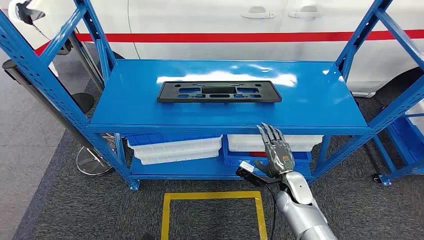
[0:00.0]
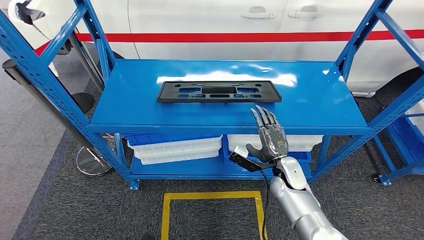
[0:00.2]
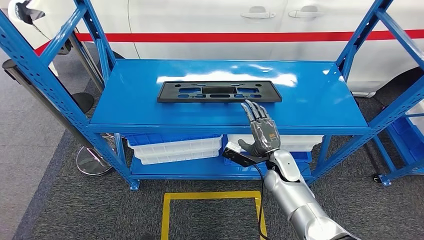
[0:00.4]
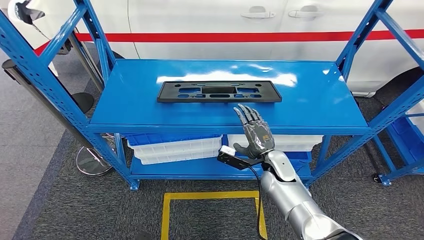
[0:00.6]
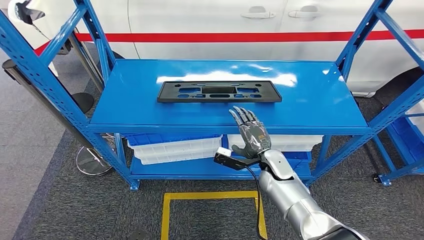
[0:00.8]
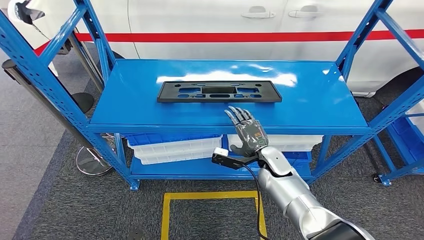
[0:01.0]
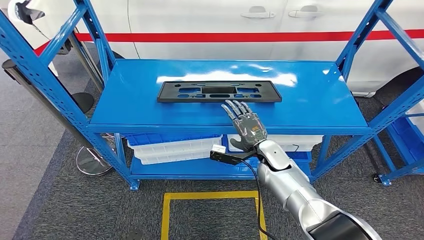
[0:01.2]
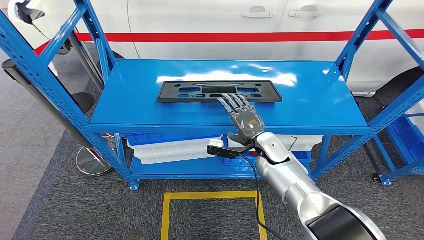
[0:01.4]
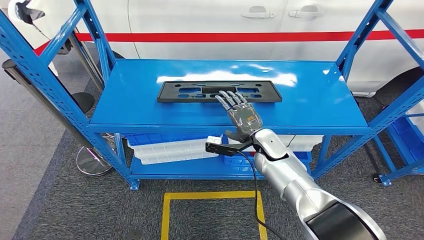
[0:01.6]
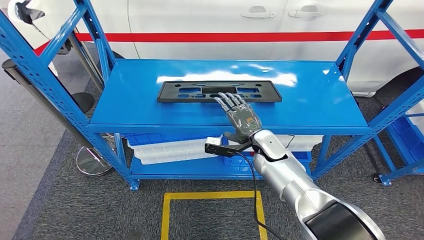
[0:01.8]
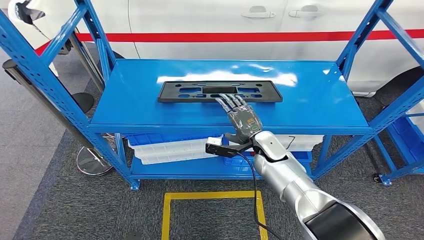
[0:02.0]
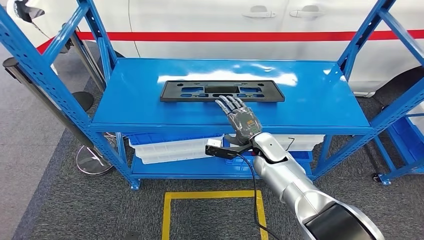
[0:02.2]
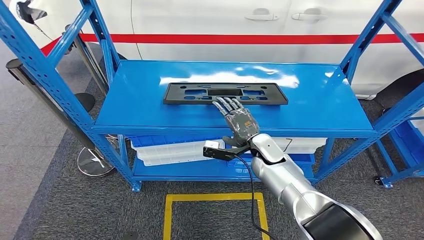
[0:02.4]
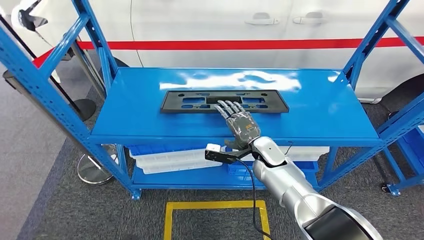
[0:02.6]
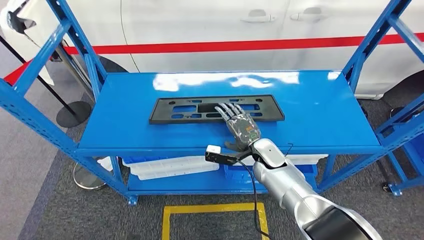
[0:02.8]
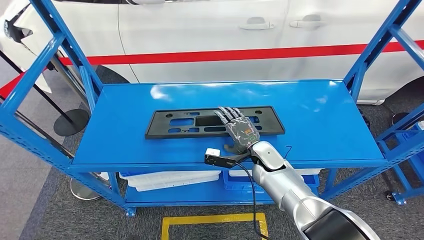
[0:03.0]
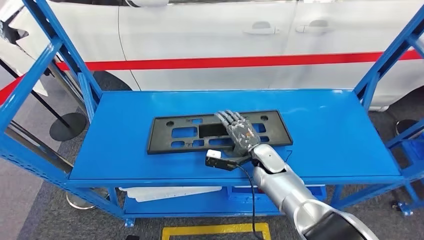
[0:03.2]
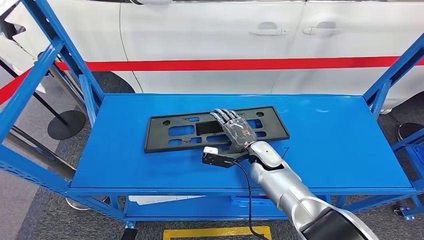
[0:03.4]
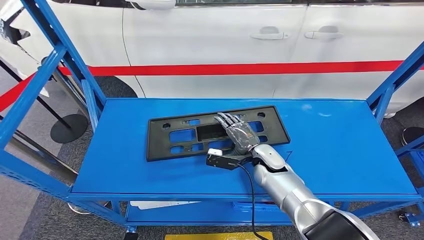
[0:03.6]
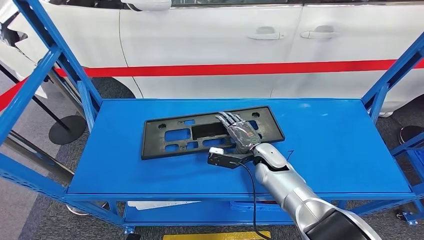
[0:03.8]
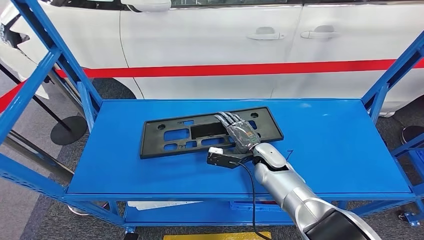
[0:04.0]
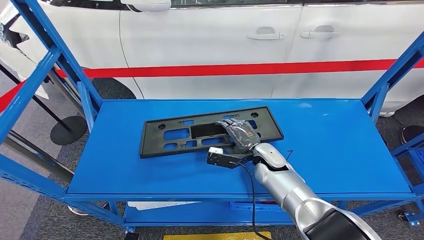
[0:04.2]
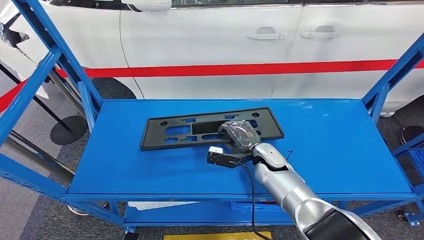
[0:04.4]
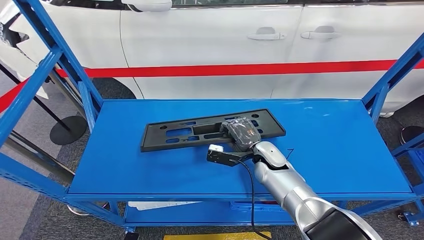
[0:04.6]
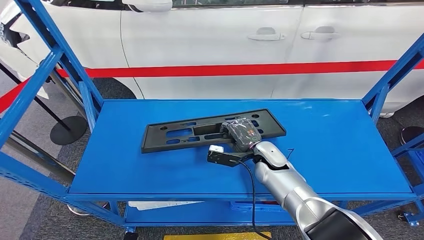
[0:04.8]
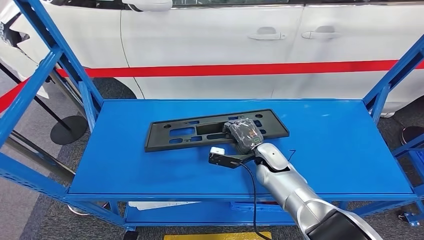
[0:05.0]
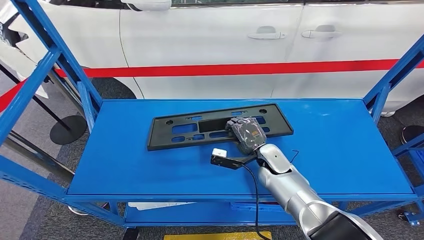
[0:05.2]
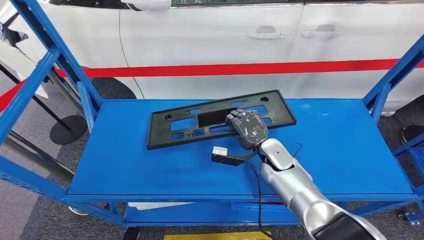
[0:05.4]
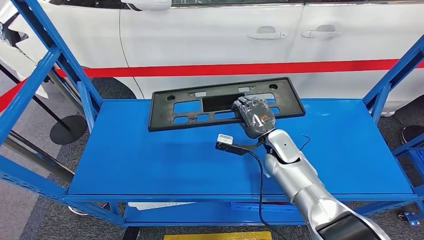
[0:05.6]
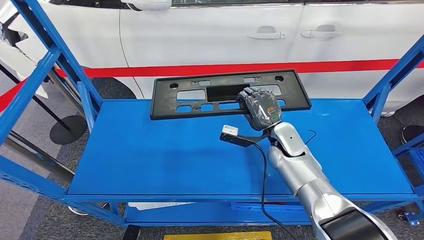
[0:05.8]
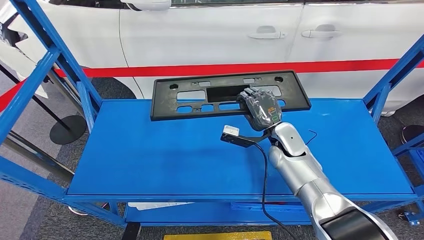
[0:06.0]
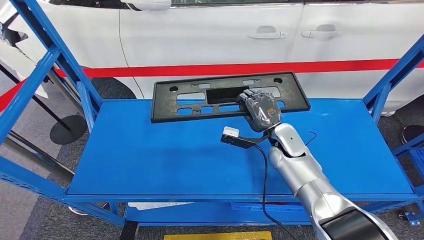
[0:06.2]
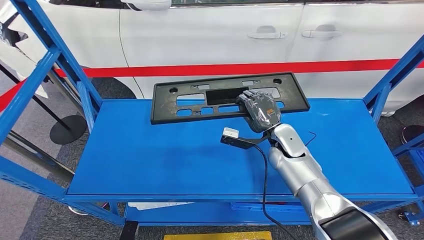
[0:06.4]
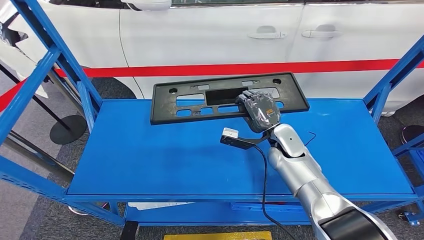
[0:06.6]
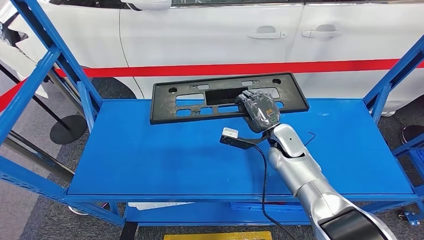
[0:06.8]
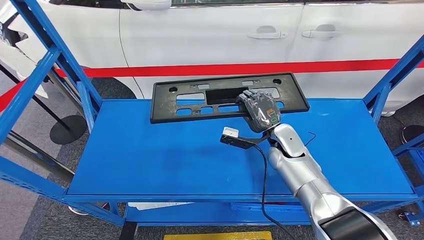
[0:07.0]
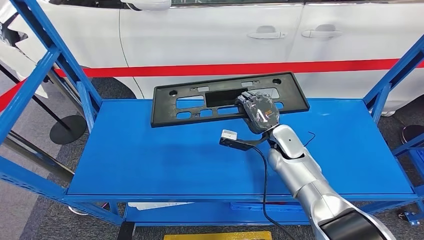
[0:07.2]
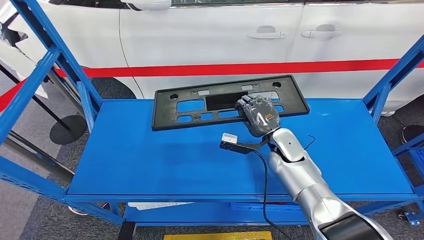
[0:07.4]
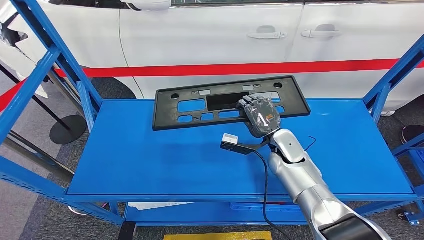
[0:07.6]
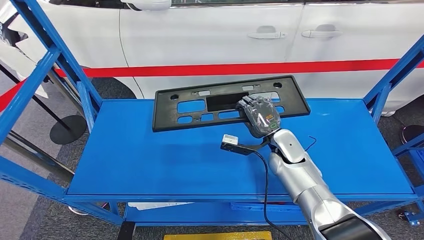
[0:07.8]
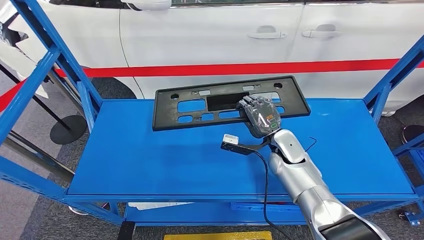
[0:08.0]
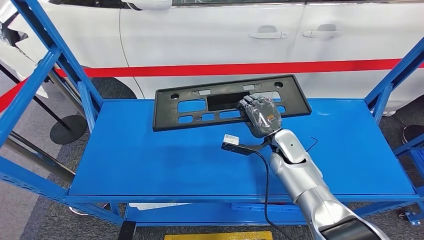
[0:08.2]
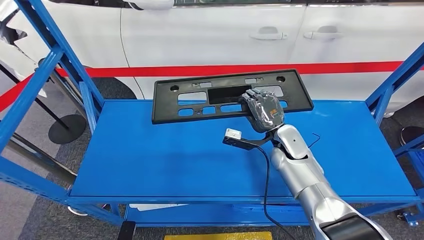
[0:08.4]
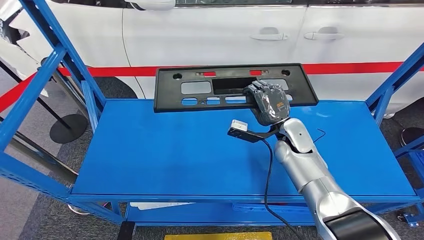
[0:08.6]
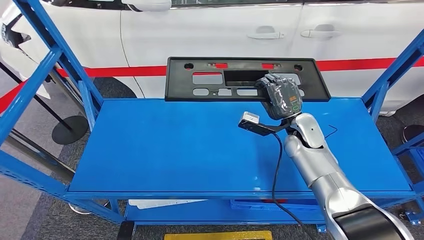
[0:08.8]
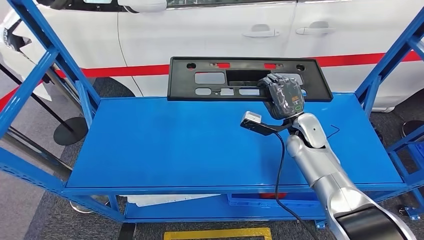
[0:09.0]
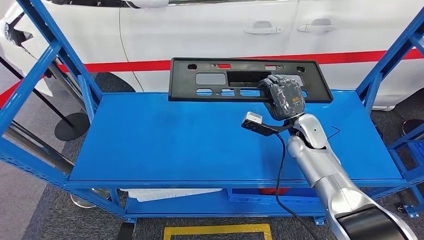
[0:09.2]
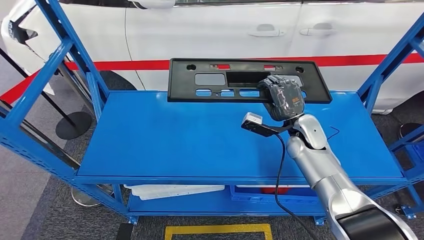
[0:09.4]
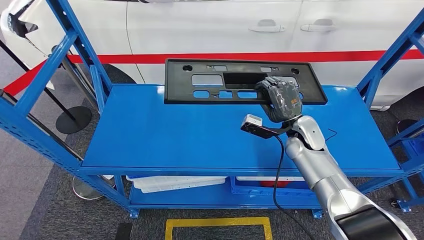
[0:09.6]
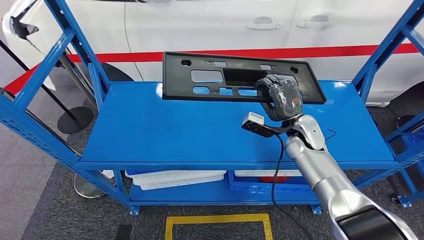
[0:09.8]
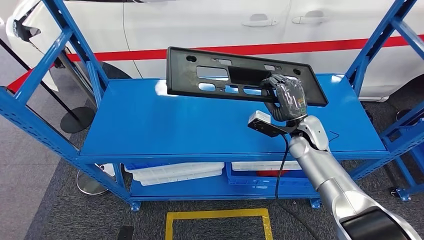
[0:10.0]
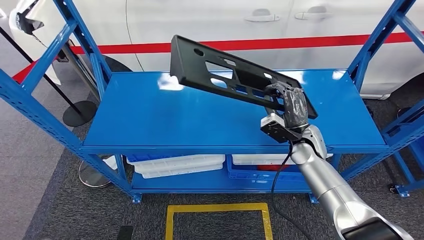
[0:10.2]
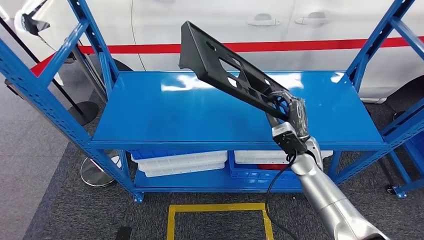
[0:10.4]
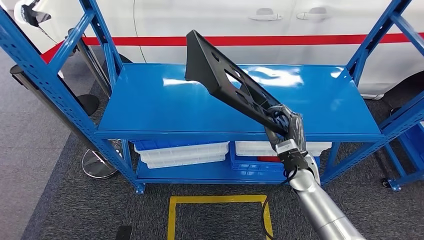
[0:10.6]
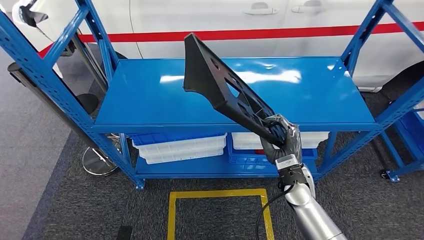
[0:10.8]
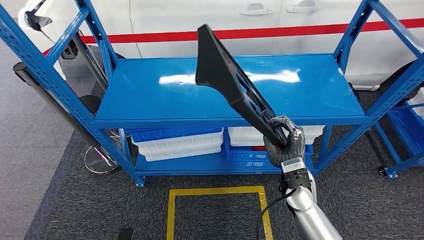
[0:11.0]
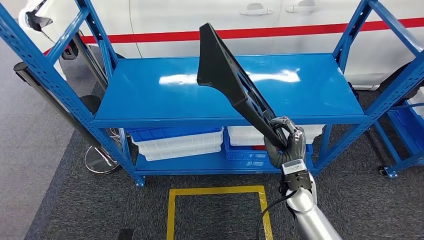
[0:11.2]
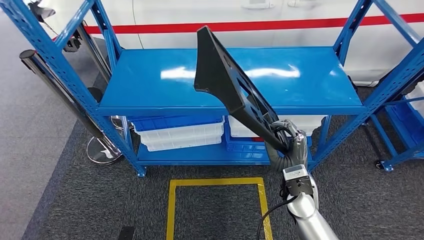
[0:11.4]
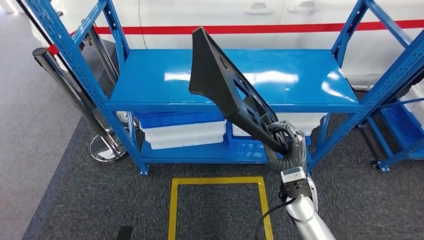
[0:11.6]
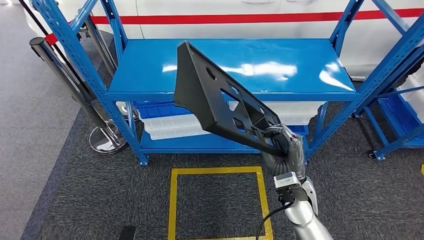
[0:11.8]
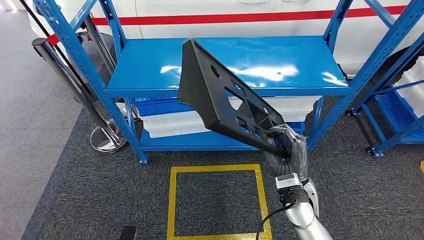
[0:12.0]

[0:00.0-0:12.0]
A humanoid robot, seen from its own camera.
Step, 0:00.0 to 0:06.4: Pick up the large material from the shelf.
0:04.4 to 0:06.0: The right hand heads upward, covering approximately 5 cm.
0:06.0 to 0:07.6: The hands stay close to where they were, moving slightly.

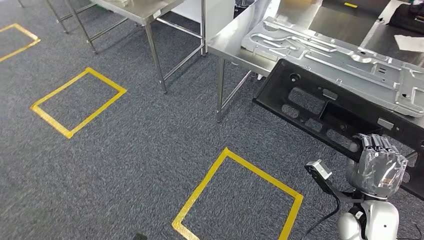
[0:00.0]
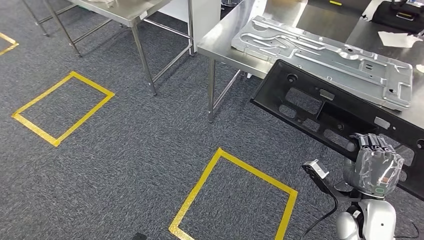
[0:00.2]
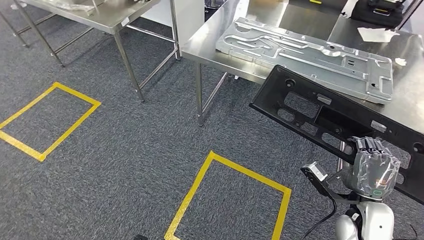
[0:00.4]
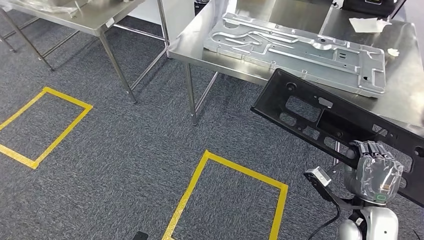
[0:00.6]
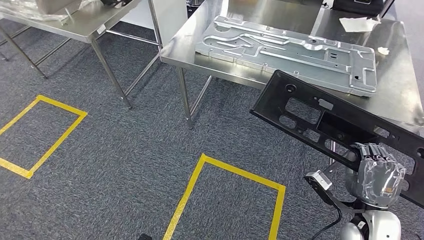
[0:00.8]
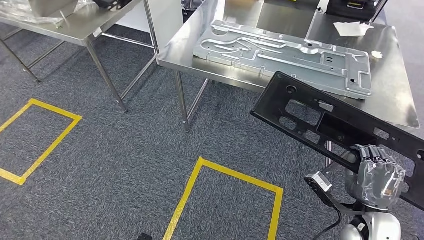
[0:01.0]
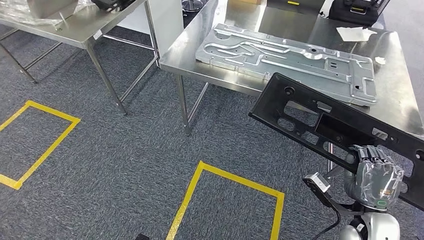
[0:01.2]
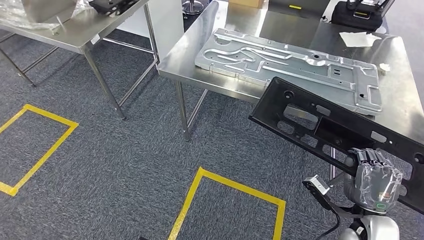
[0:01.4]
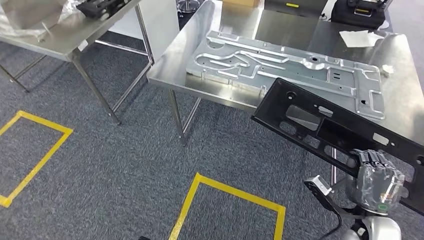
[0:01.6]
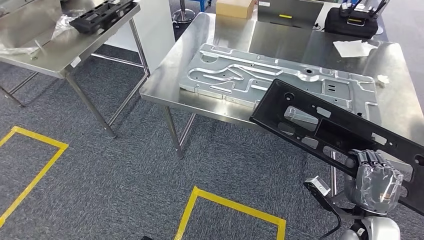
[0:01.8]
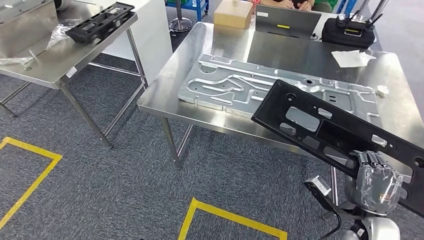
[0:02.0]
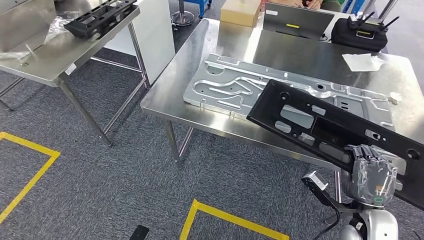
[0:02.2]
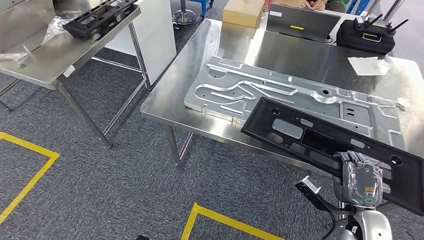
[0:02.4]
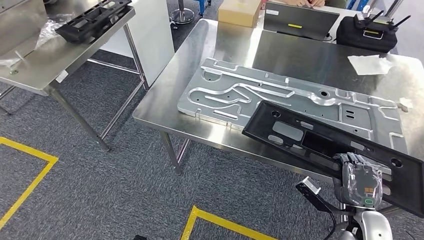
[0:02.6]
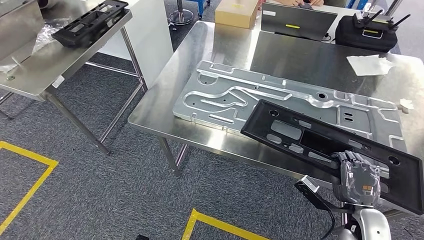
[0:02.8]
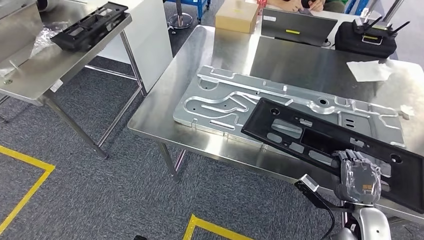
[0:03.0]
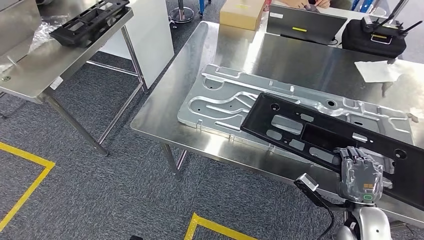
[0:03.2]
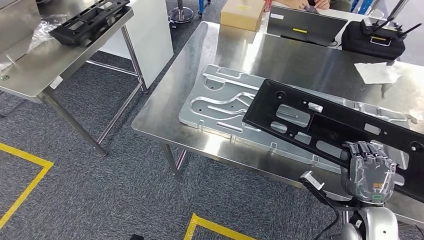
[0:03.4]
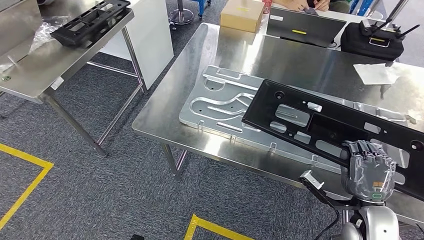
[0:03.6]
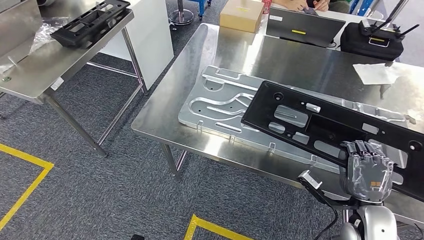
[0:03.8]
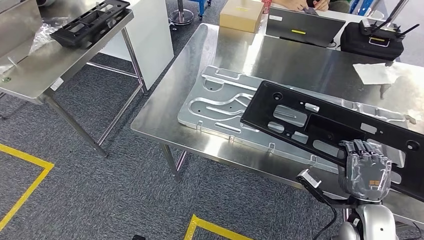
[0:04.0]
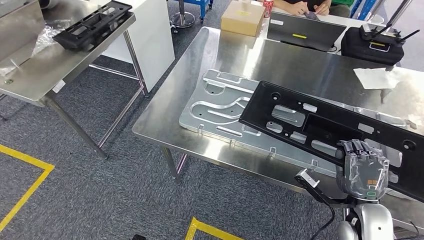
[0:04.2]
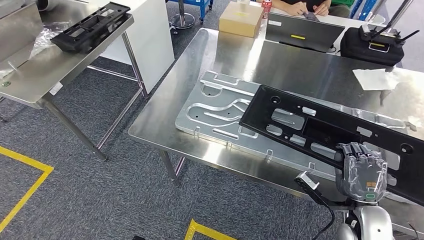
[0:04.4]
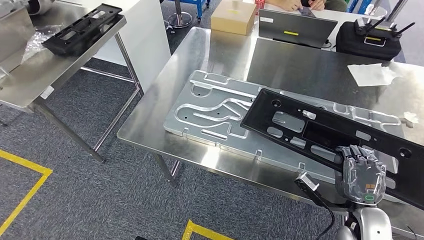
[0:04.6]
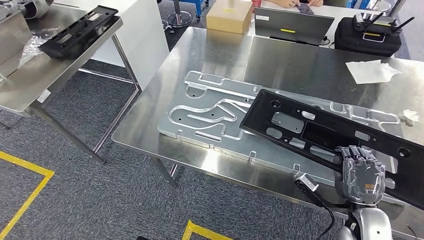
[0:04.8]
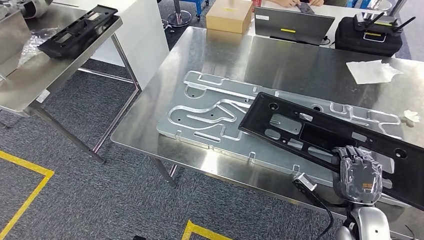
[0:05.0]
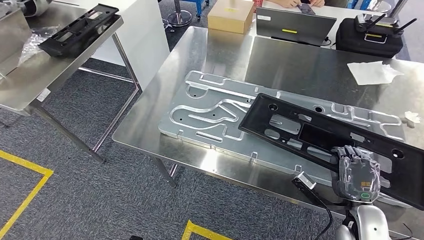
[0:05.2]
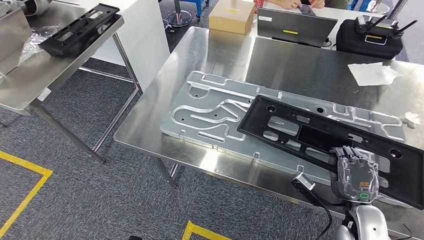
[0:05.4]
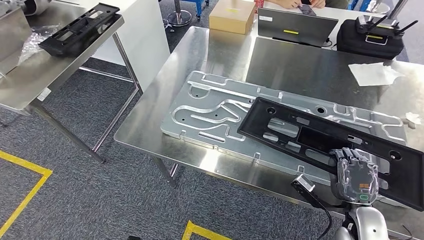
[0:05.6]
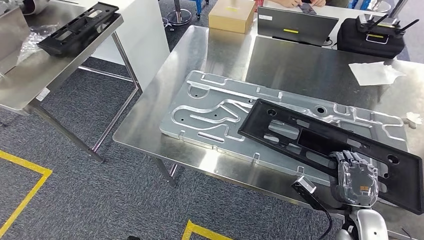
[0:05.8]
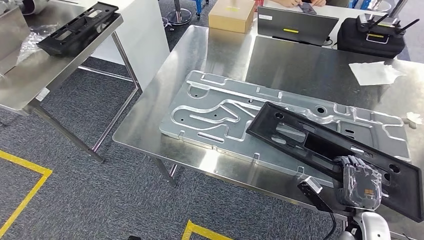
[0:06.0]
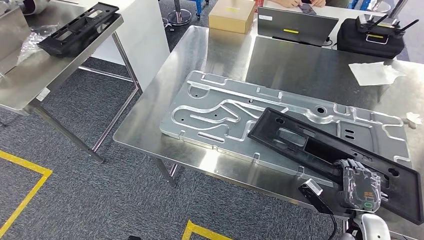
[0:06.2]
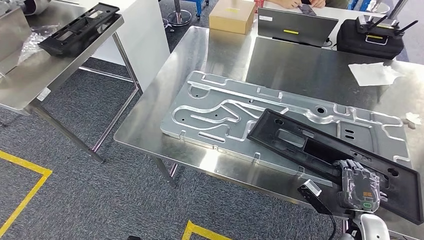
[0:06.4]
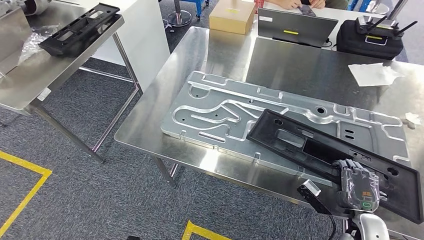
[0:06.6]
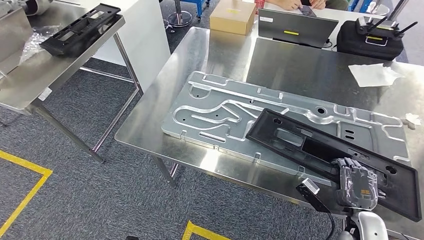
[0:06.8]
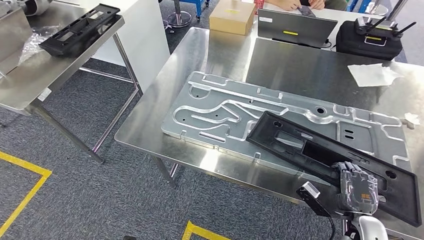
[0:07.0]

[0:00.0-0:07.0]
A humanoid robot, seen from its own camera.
Step, 0:00.0 to 0:03.0: Move the large material to the workbench.
0:05.6 to 0:07.0: The hands make only small movements.
